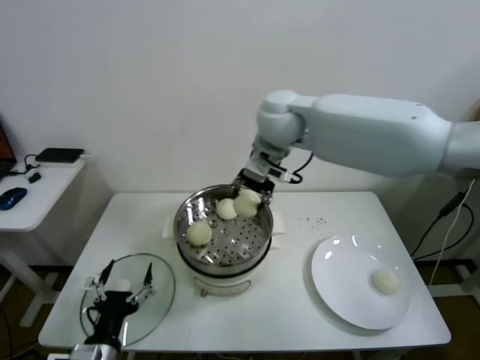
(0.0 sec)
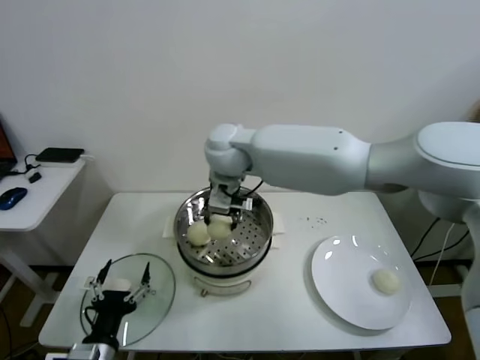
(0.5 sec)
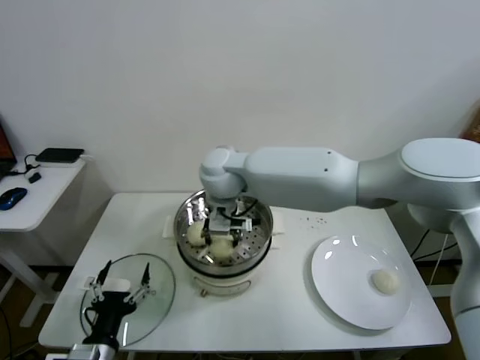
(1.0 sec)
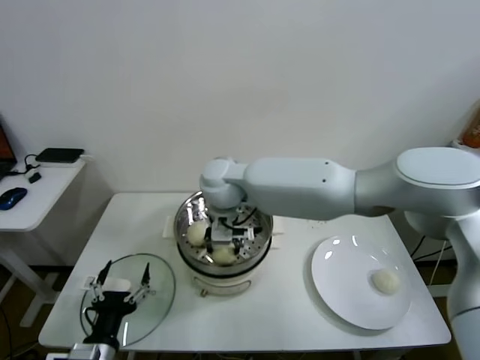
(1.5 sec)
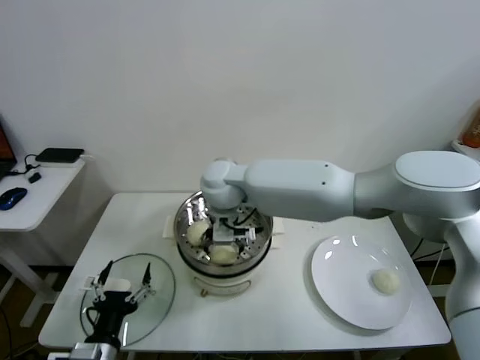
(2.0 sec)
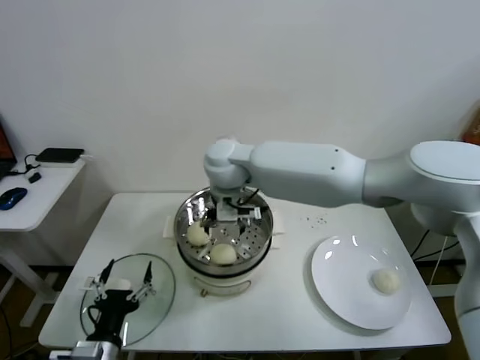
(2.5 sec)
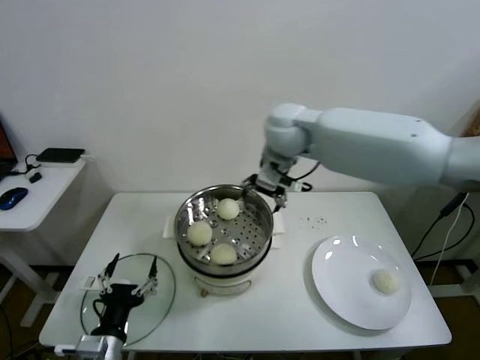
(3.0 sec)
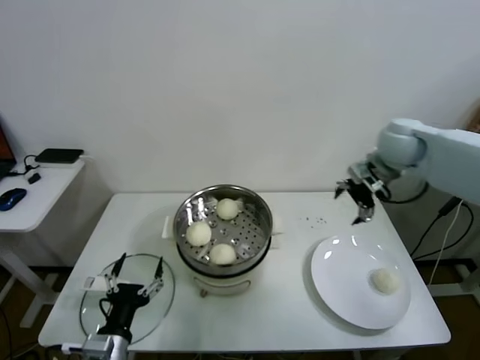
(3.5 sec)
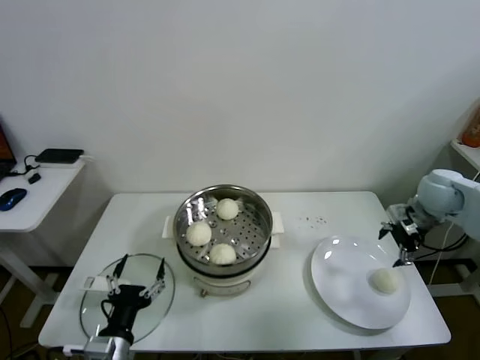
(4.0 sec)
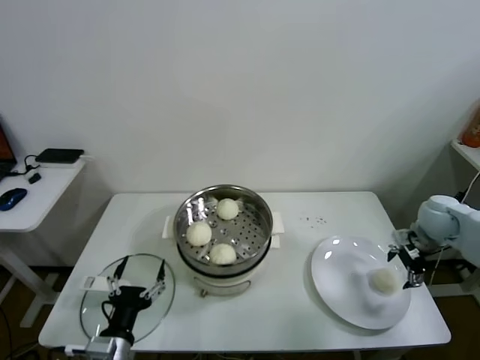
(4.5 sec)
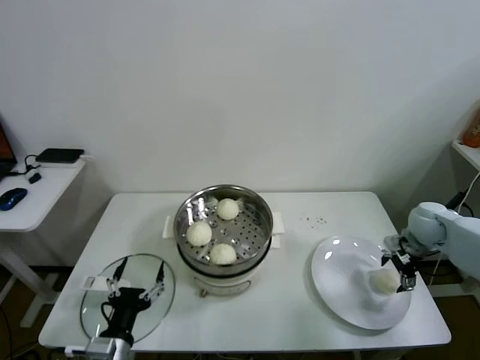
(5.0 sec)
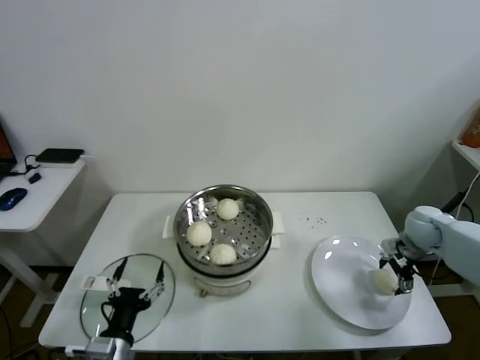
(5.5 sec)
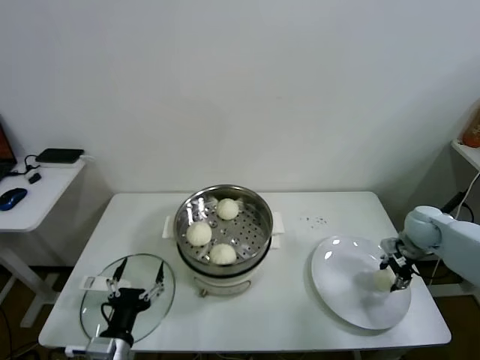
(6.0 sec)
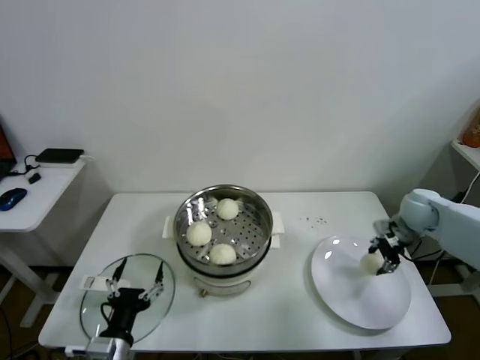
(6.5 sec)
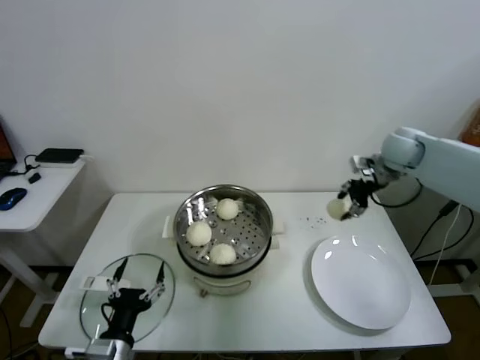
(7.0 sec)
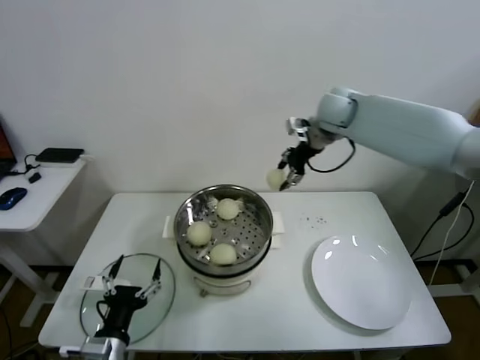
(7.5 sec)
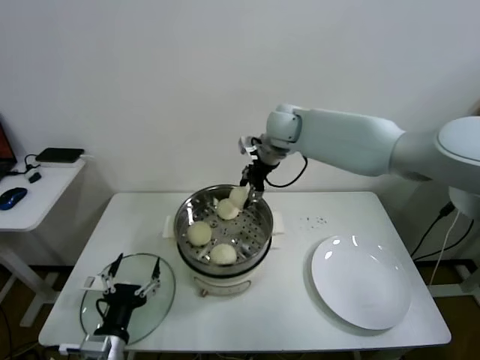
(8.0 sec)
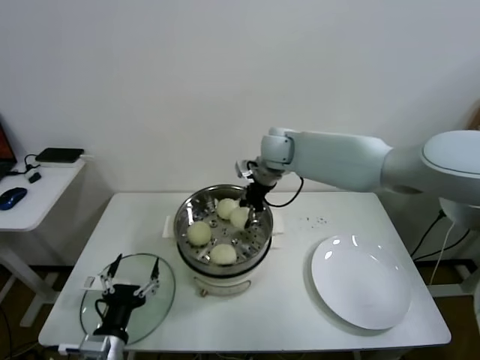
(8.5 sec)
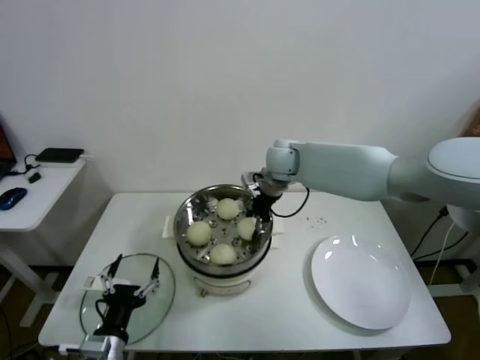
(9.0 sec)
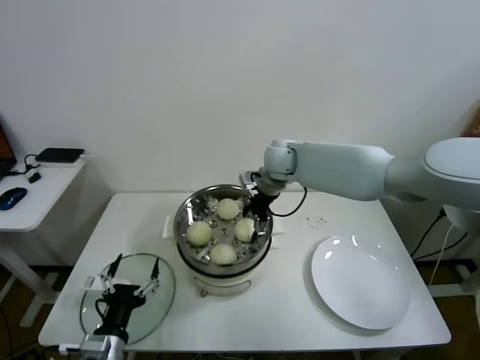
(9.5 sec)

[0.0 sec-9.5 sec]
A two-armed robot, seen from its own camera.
Task of the whole recording: take steamed baozi put them in steamer.
Step, 0.0 sec to 2.0 sec: Place the baozi on the steamer with right gripper.
Step, 2.5 sec to 6.0 sec: Grasp the baozi in the plate with right gripper.
Step, 6.5 sec to 9.5 sec: Place the baozi on the steamer with right gripper.
0.0 sec to 2.0 sec: The right gripper goes about 15 cm downward and to the left, and opens its fingers.
2.0 sec to 4.0 sec: The right gripper moves to the right, some 50 cm.
4.0 sec to 5.5 sec: The right gripper travels downward by approximately 10 cm.
5.5 sec to 7.5 sec: The right gripper travels upward, to the left and forward by some 35 cm, and closes its fingers.
7.5 sec to 9.5 sec: The right gripper goes roughly 15 cm to the left and downward, and opens its fingers.

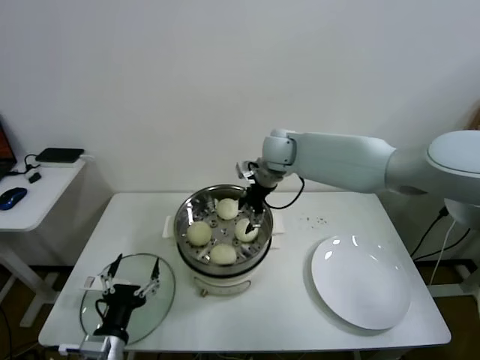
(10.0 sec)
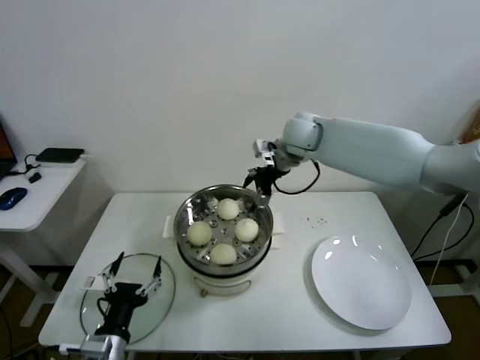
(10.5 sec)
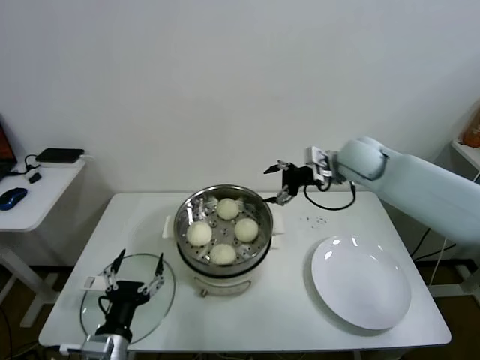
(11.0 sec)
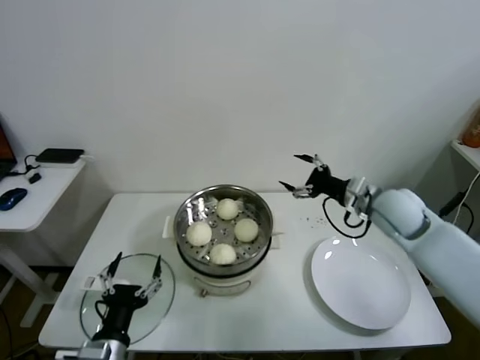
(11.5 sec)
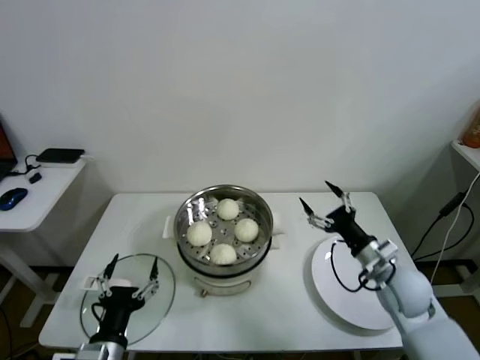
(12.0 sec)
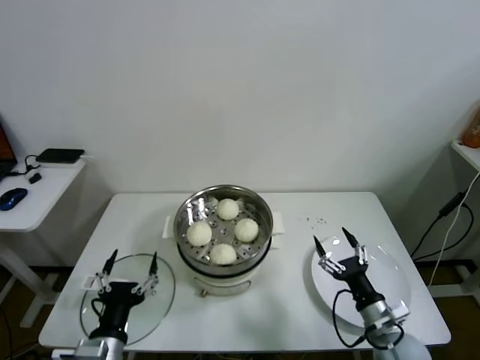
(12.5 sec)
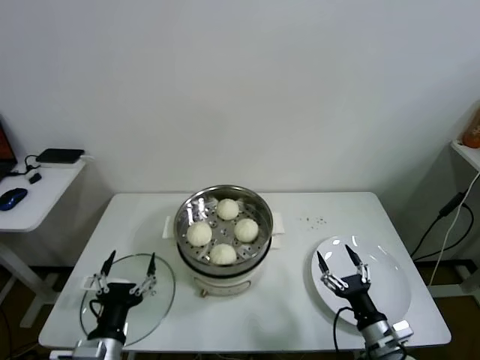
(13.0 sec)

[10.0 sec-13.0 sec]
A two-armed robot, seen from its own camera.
Task of the whole recording: take steamed baozi put them in steamer.
10.0 sec to 11.5 sec: The right gripper travels to the right and backward by roughly 25 cm.
11.5 sec to 13.0 sec: The right gripper shifts about 35 cm backward and downward.
